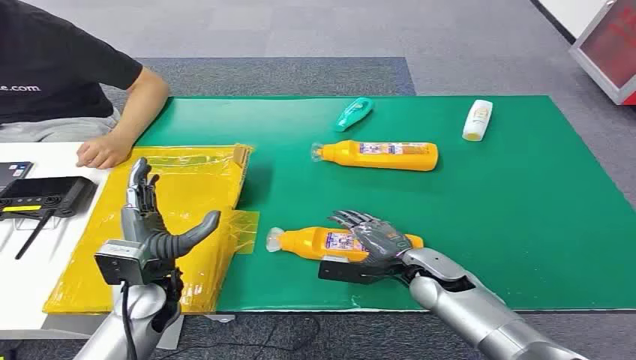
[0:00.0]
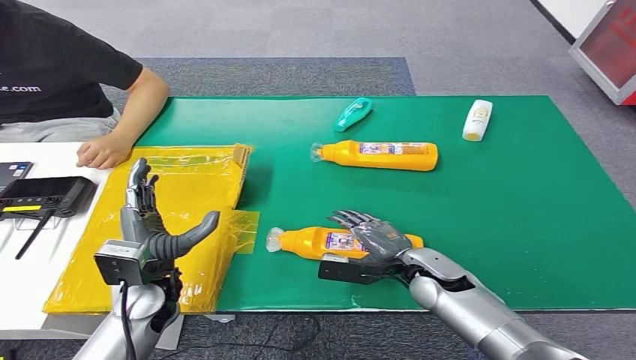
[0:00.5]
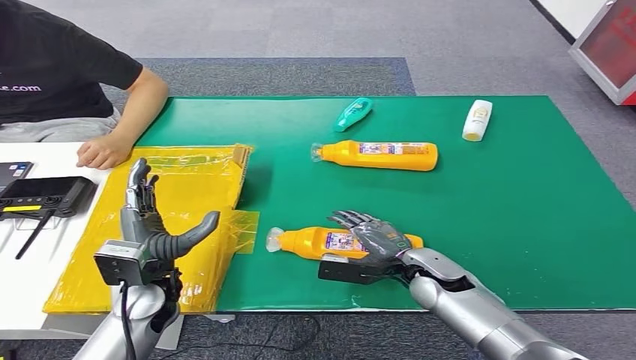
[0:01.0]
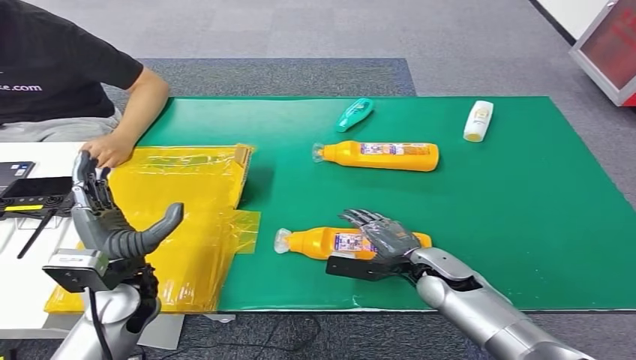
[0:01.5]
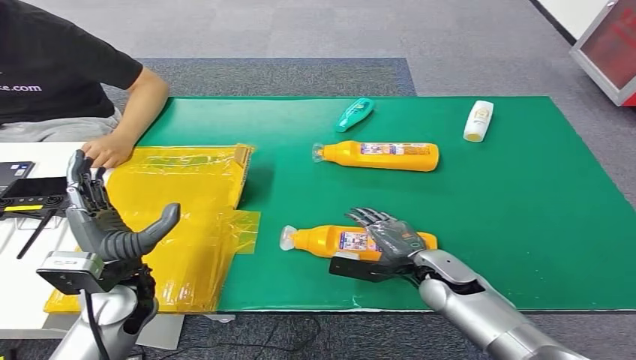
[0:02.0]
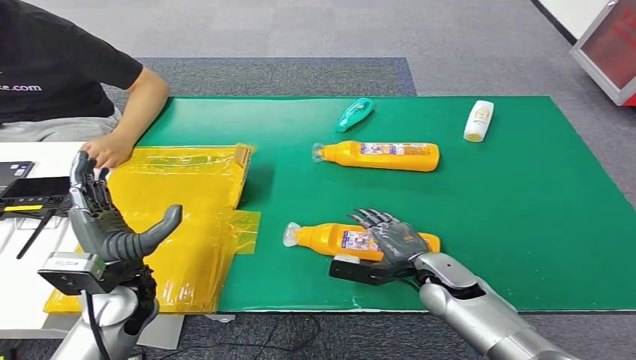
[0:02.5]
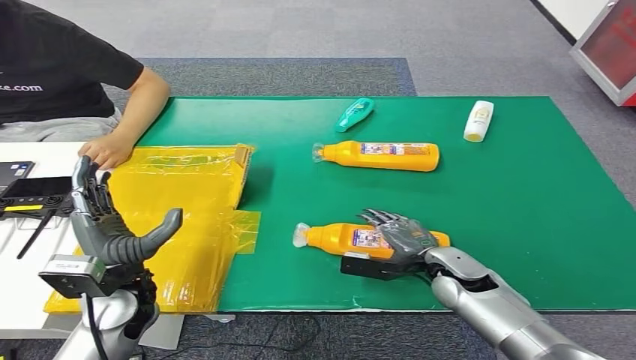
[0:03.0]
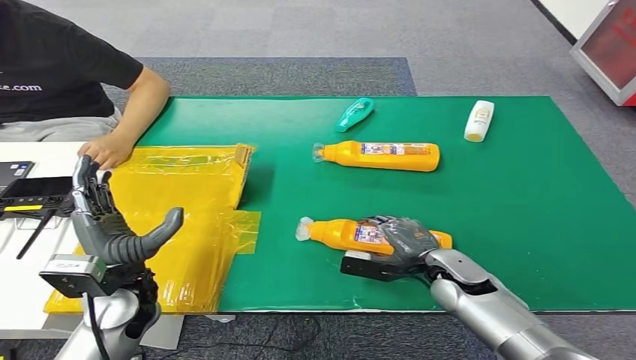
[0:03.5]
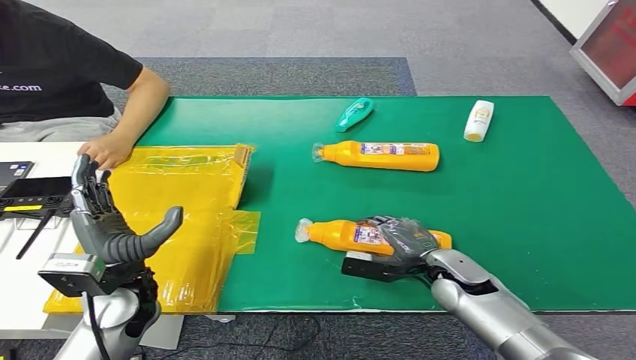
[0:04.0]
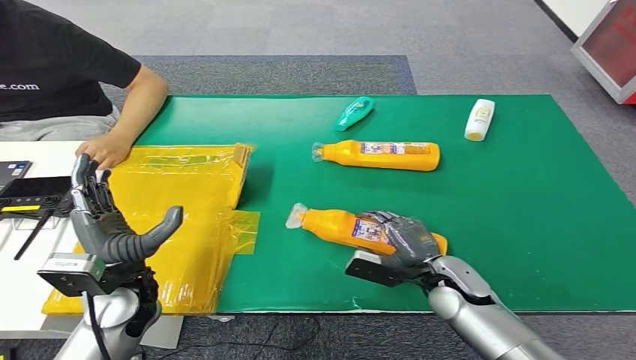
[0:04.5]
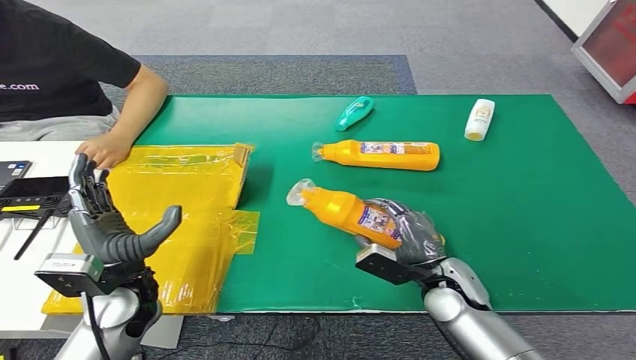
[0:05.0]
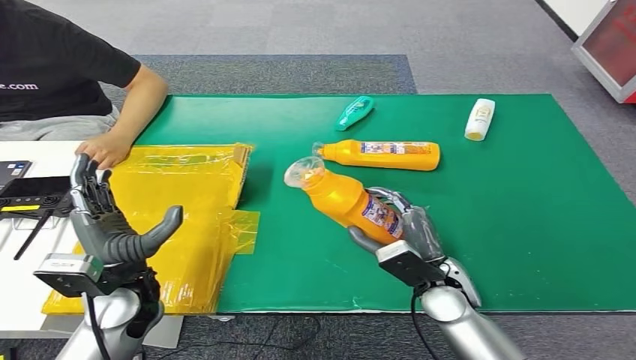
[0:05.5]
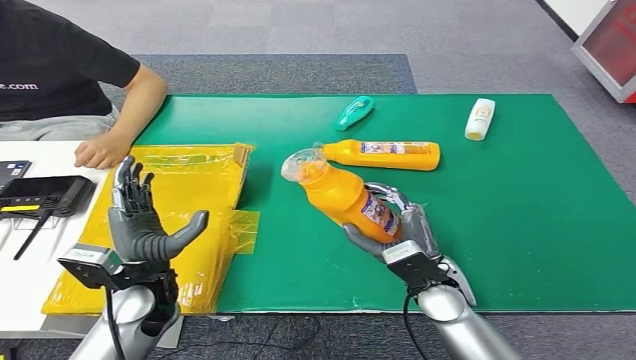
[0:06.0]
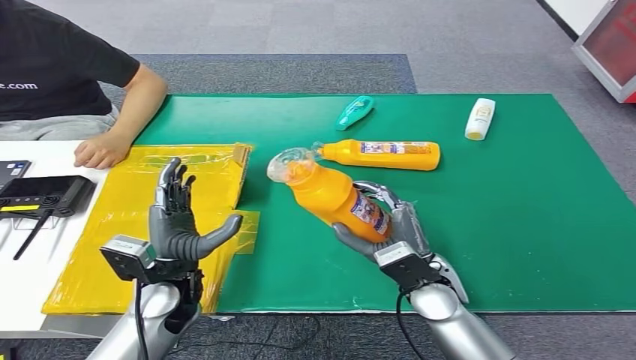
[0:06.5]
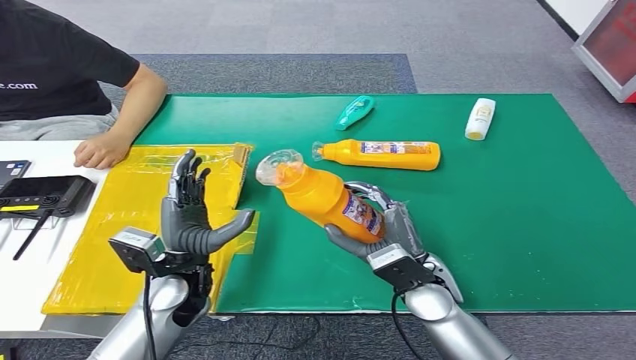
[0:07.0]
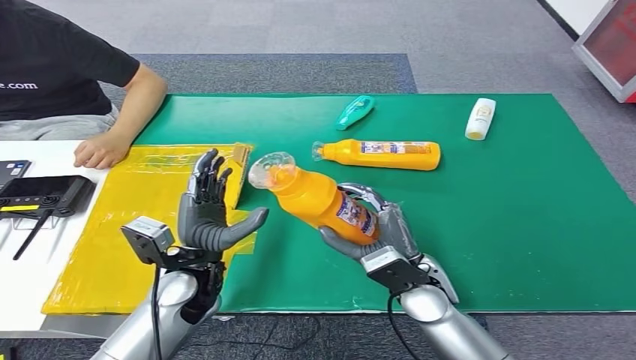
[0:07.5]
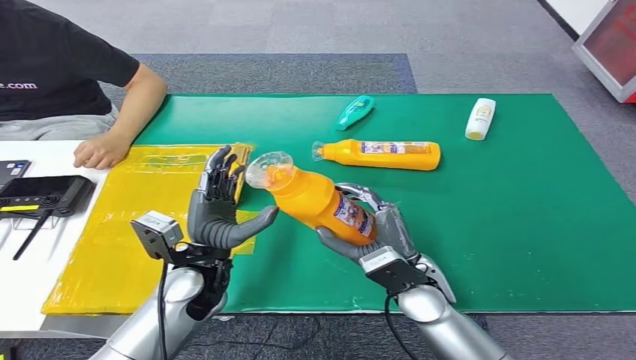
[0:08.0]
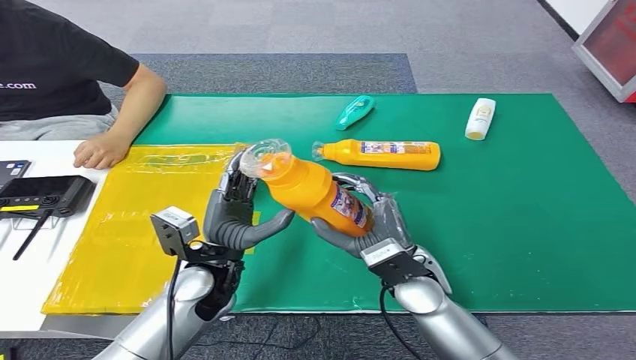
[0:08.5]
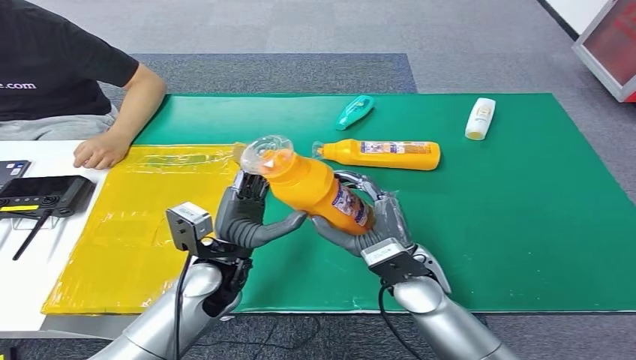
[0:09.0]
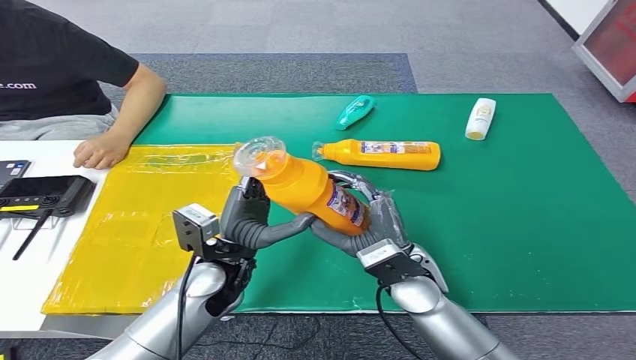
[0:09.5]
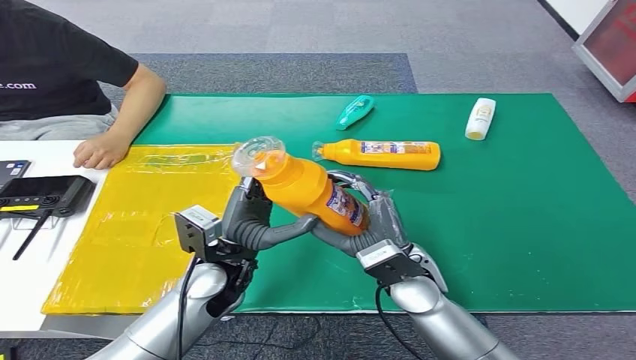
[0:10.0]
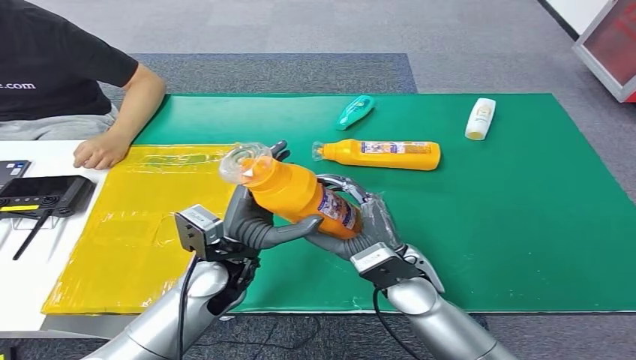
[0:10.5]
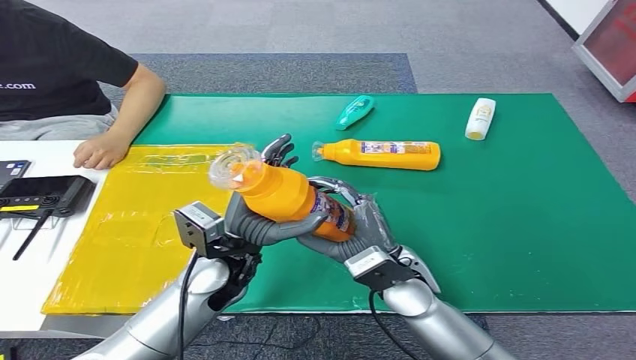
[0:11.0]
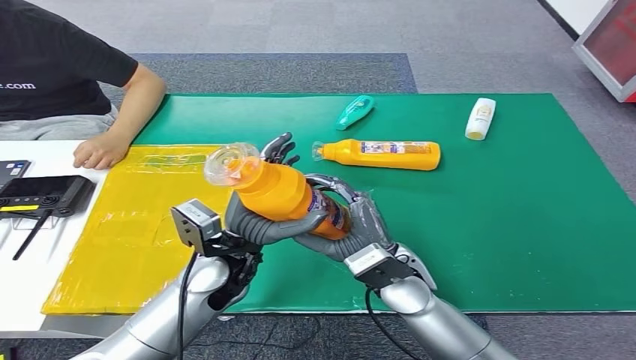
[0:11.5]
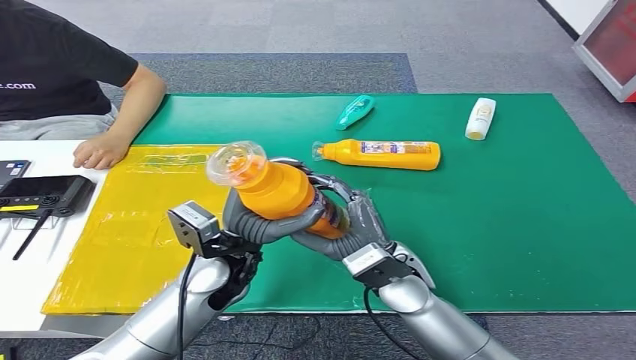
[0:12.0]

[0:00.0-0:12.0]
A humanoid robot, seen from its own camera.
Step, 0:00.0 to 0:05.5: Pick up the bottle from the table.
0:02.0 to 0:04.0: The hands move only a little.
0:06.0 to 0:08.0: The left hand goes approximately 5 cm to the right.
0:08.0 to 0:12.0: The hands stay close to where they were, moving slightly.

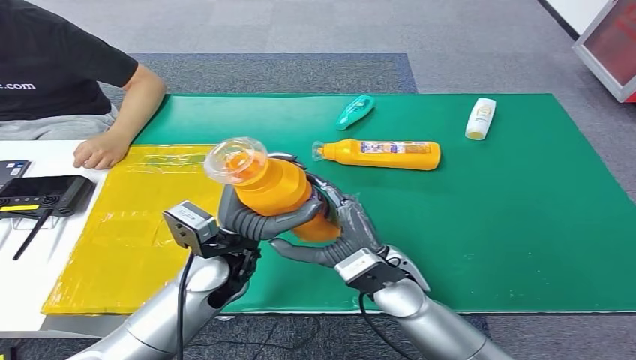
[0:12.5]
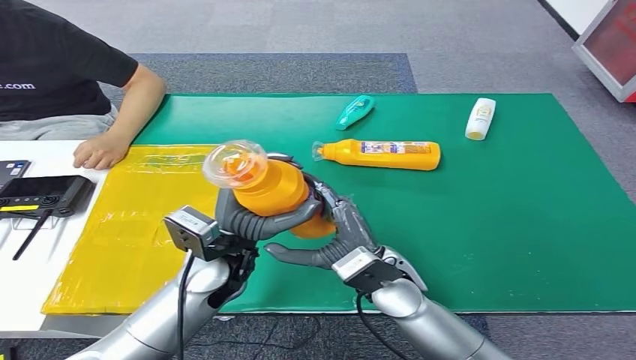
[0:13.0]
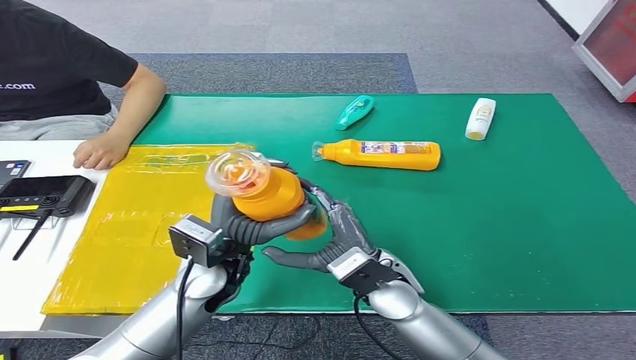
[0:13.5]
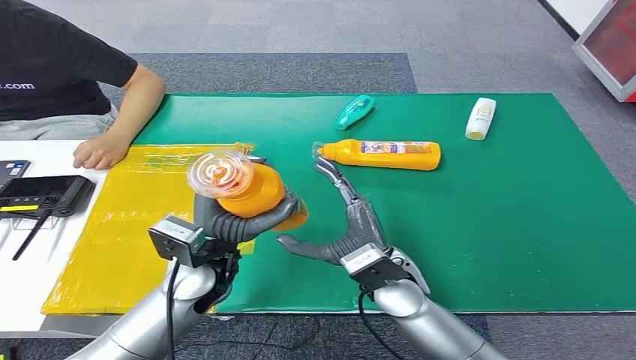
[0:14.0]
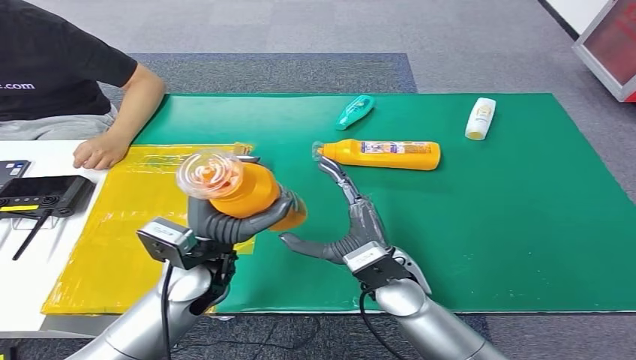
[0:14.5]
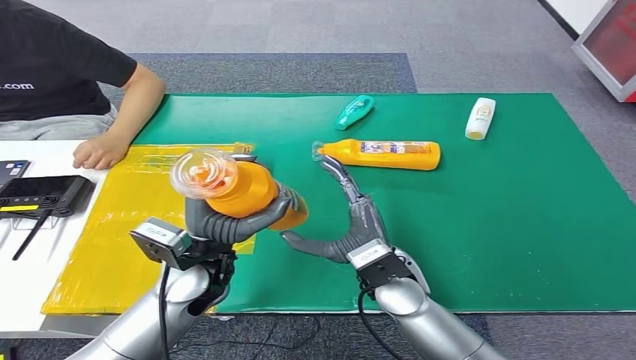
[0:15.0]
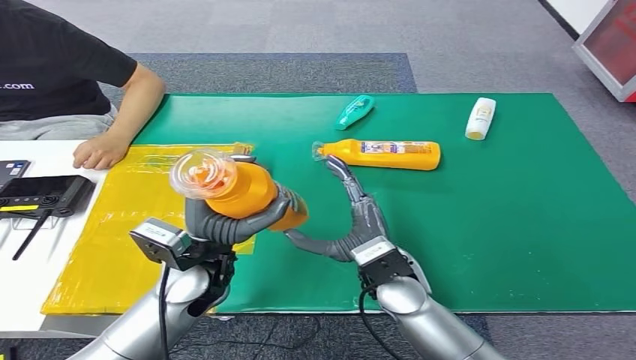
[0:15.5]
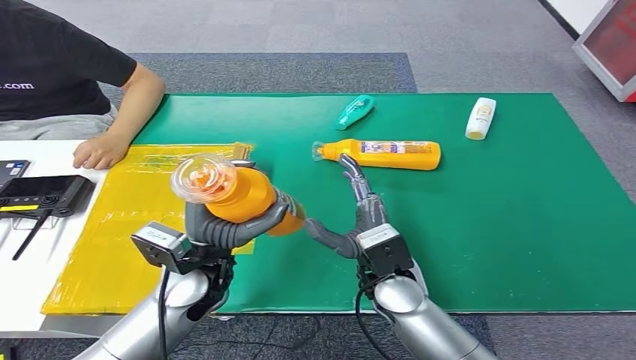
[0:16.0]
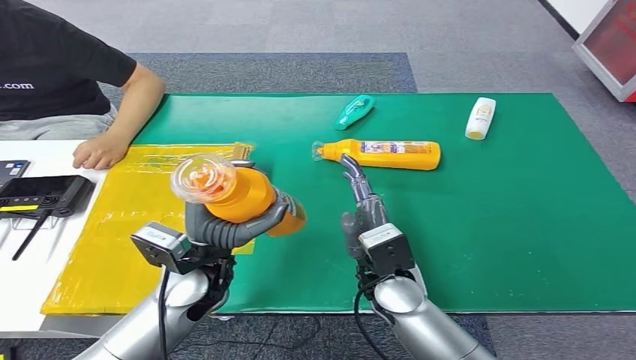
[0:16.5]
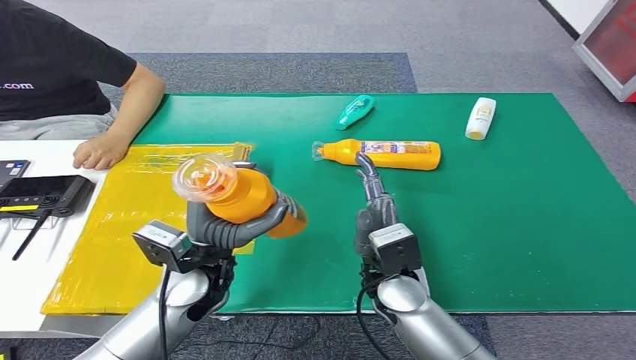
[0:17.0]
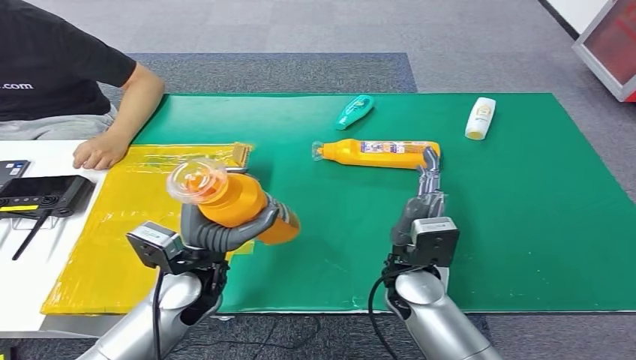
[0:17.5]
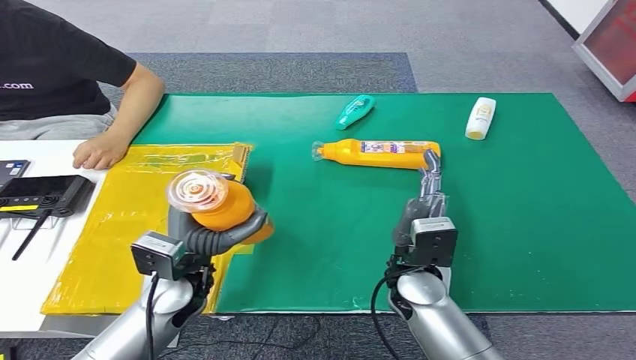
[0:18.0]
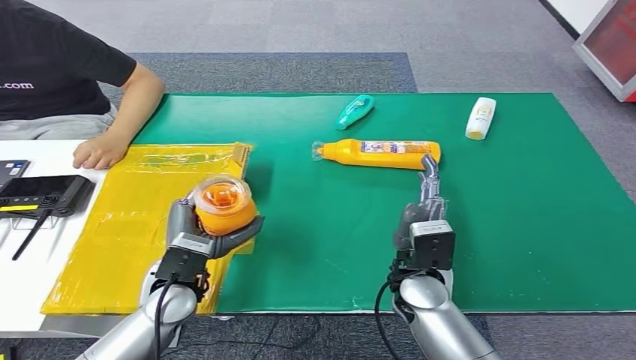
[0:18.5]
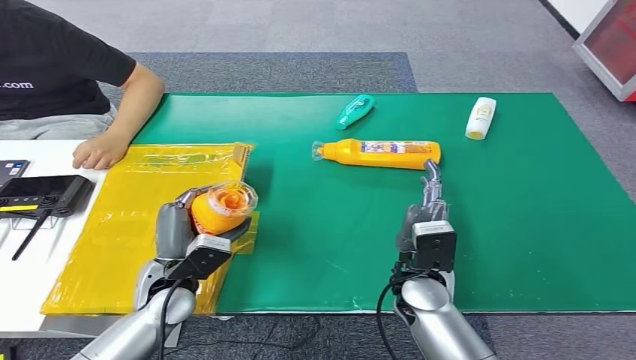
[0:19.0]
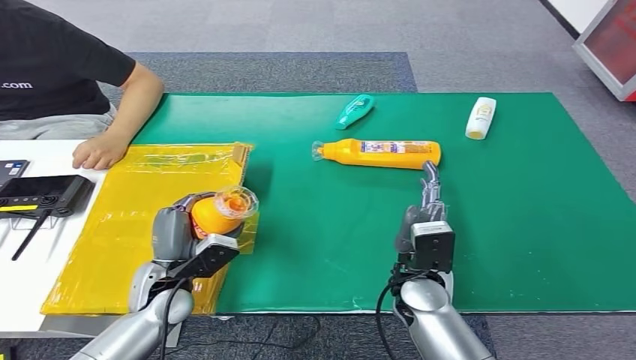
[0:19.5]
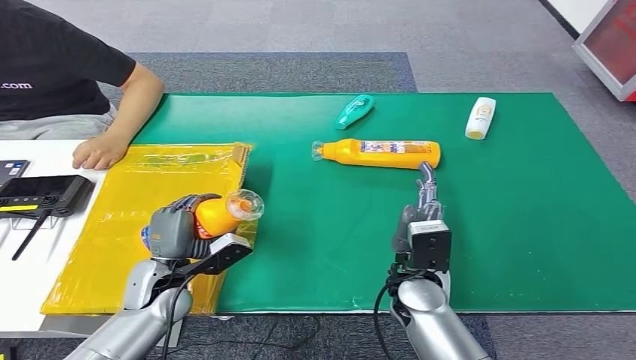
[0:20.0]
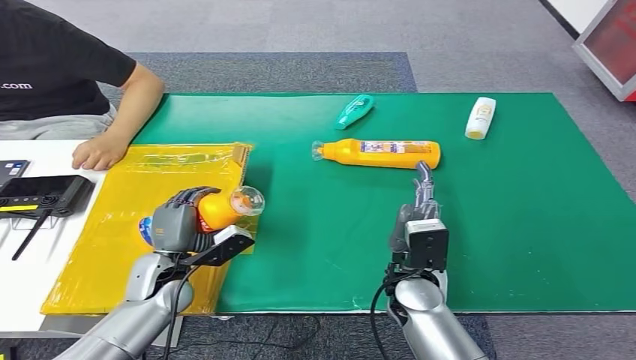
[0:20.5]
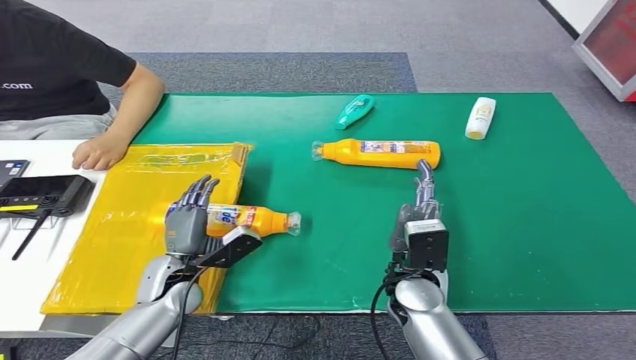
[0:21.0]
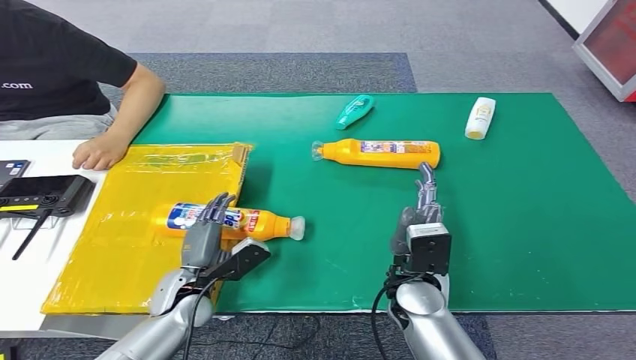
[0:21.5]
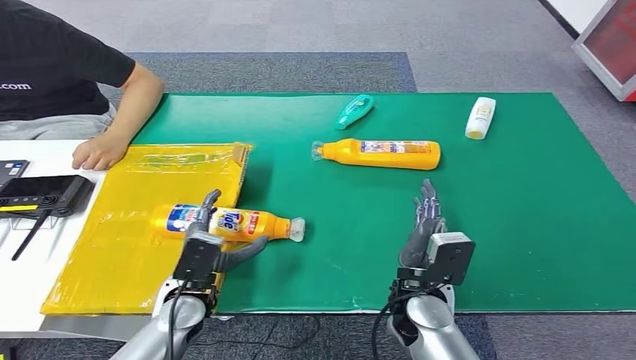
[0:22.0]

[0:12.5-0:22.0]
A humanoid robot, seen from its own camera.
Step, 0:12.5 to 0:22.0: Turn the bottle to the front side.
0:12.5 to 0:16.5: The hands make only small movements.
0:18.0 to 0:20.0: The left hand goes about 10 cm downward and to the left.
0:20.0 to 0:22.0: The left hand ends up some 5 cm from where it was.
